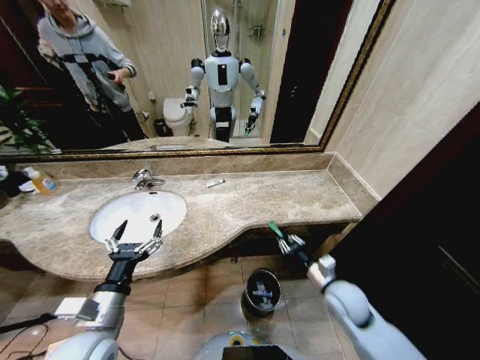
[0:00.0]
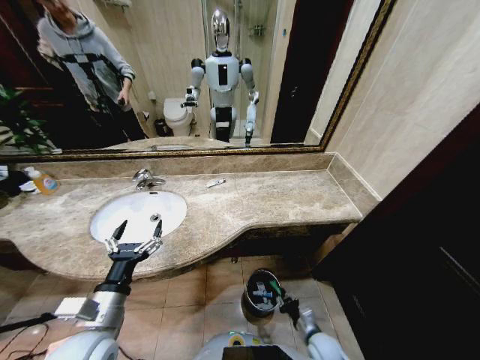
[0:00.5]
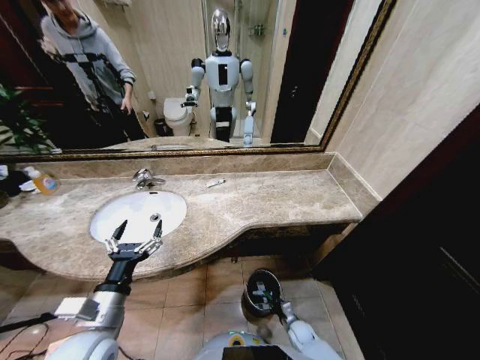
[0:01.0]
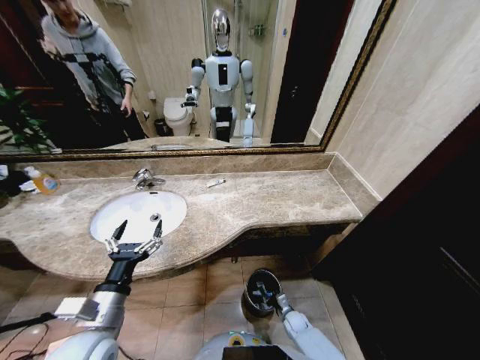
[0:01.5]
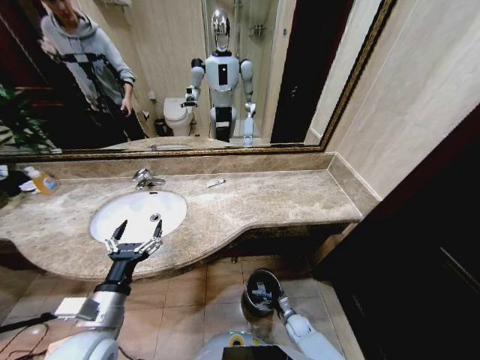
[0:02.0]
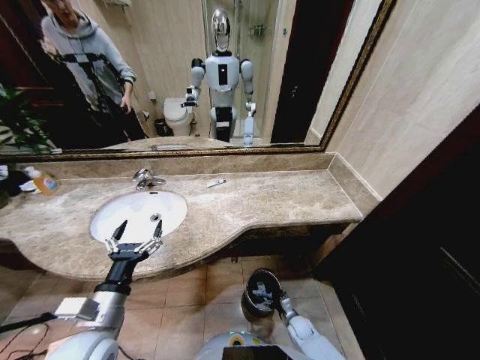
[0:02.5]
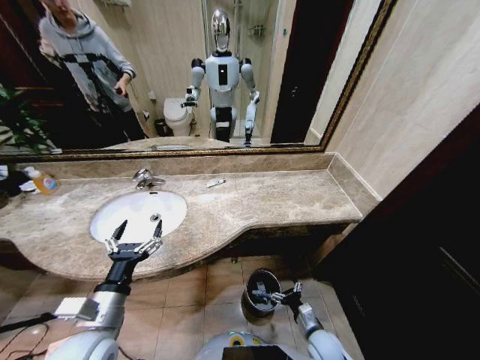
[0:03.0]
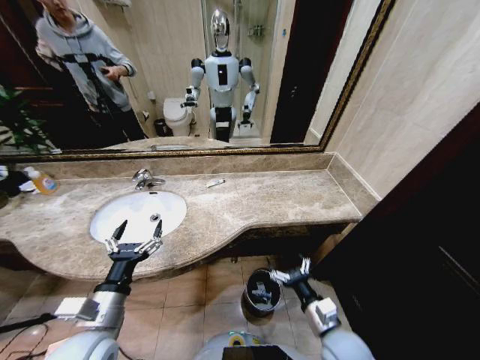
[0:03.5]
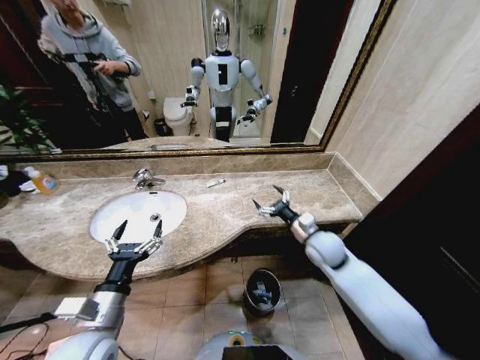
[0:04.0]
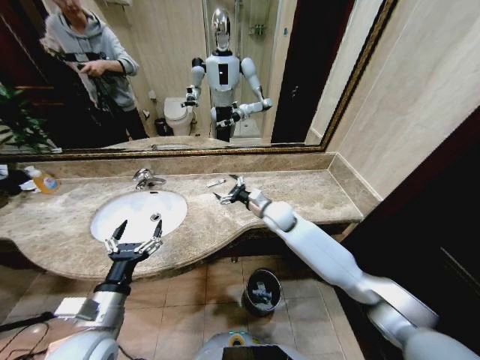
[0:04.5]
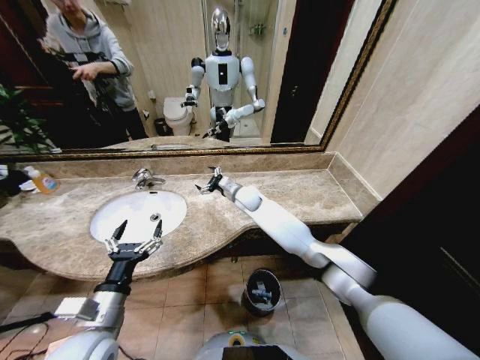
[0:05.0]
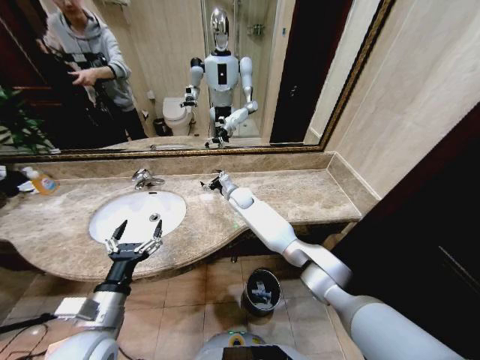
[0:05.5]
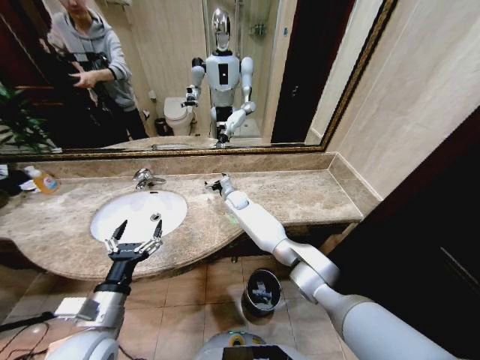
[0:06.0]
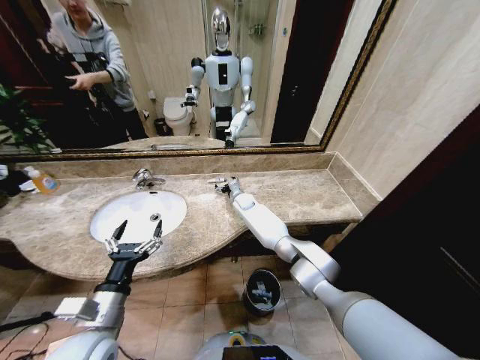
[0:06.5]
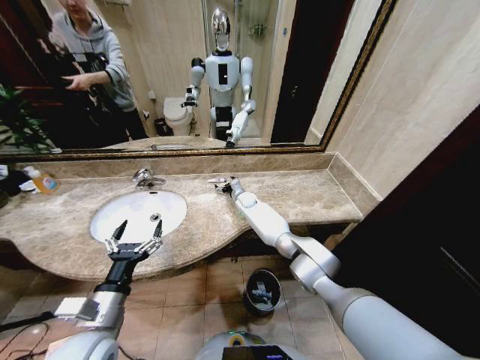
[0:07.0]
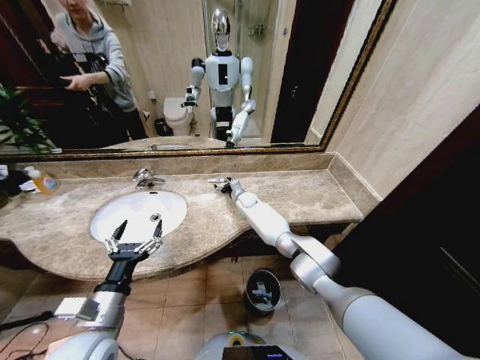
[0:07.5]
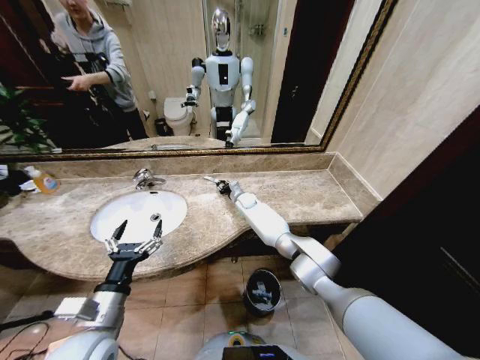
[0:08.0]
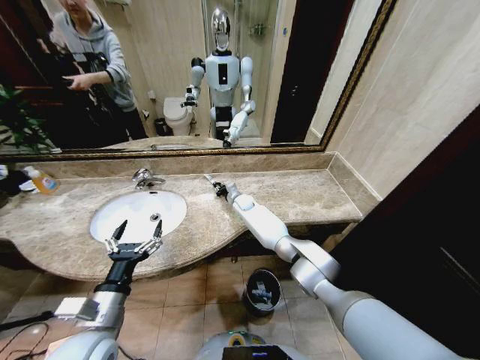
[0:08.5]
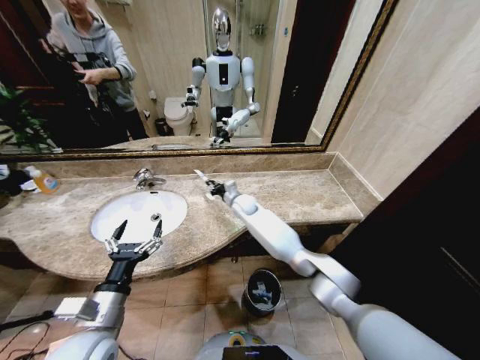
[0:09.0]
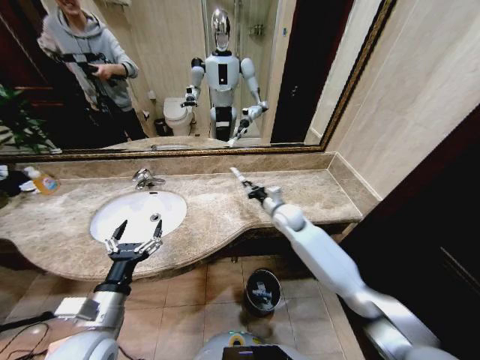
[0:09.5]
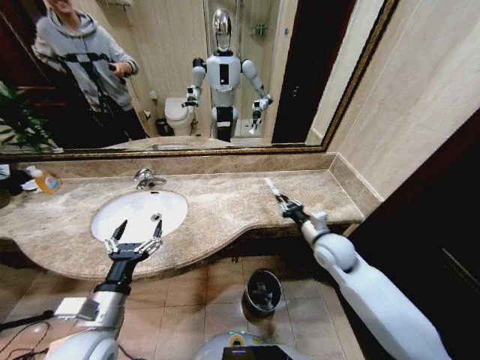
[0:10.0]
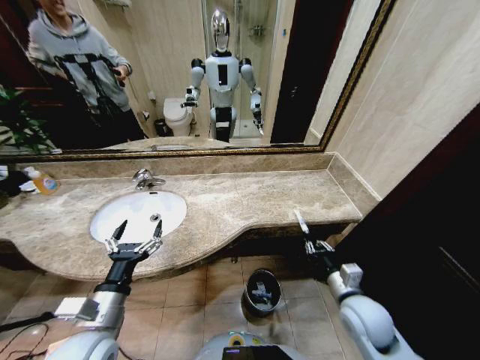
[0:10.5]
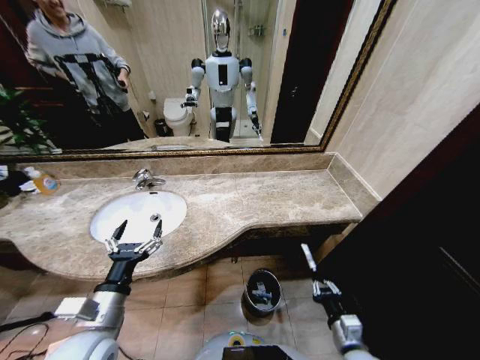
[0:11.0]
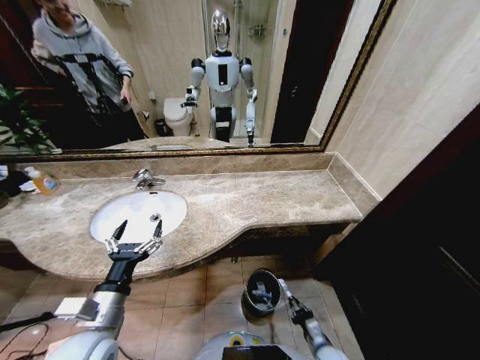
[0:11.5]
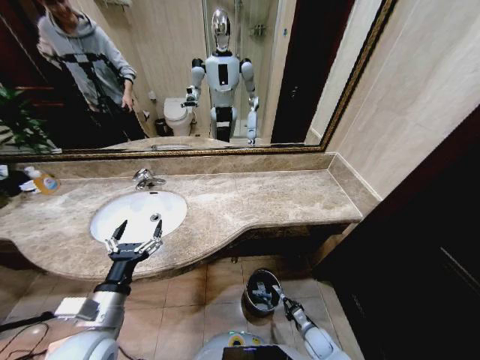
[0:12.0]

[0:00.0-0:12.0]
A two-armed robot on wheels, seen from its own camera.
Task of the whole recording: Pick up the trash from the sink and place it in the trash bin.
0:00.0 to 0:02.0: The right gripper heads downward, covering approximately 30 cm, and opens up.
0:02.0 to 0:04.0: The right gripper travels upward by approximately 40 cm.
0:04.0 to 0:06.0: The right gripper shifts roughly 35 cm forward and to the left.
0:06.0 to 0:08.0: The right gripper moves approximately 5 cm, and closes up.
0:08.0 to 0:10.0: The right gripper is displaced backward and to the right by some 35 cm.
0:10.0 to 0:12.0: The right gripper travels downward and backward by some 40 cm.

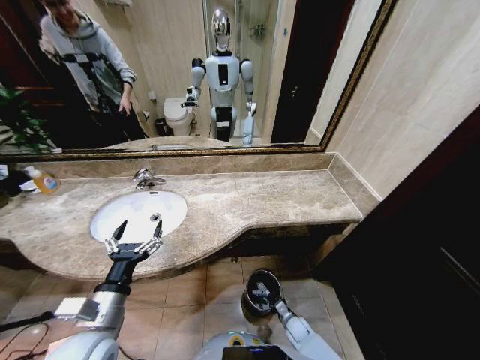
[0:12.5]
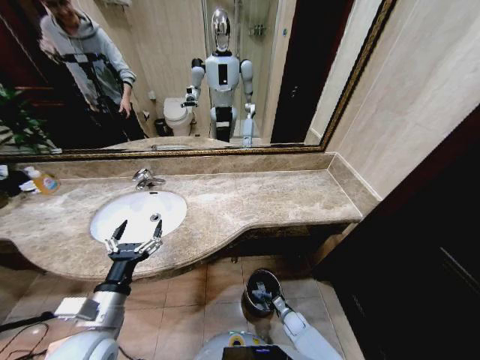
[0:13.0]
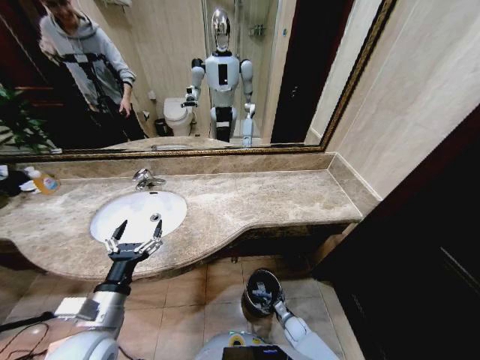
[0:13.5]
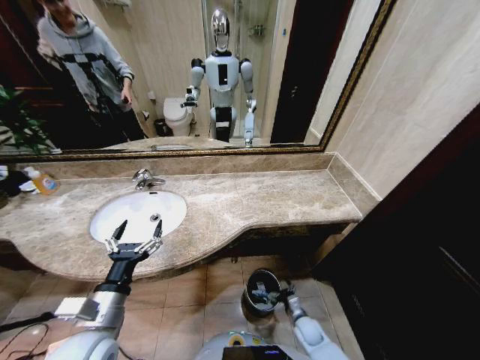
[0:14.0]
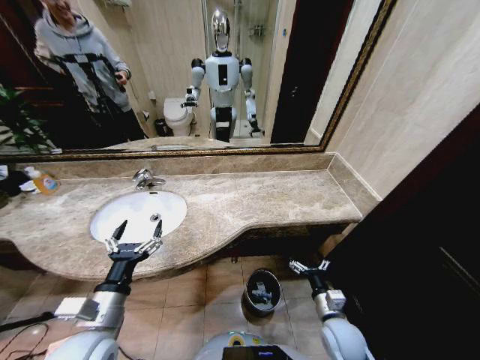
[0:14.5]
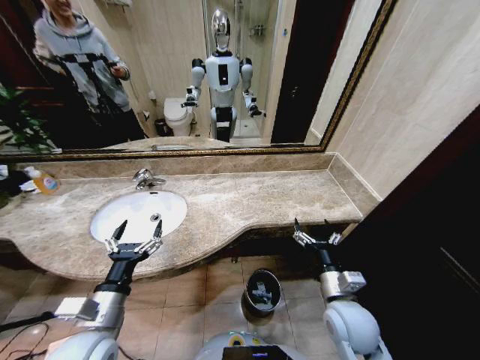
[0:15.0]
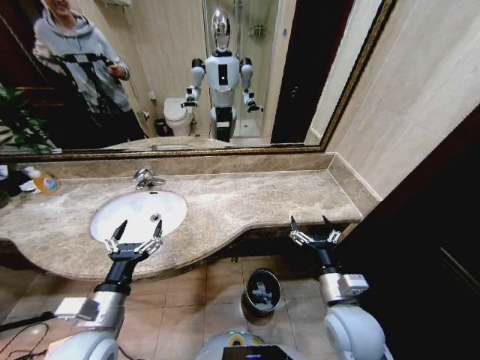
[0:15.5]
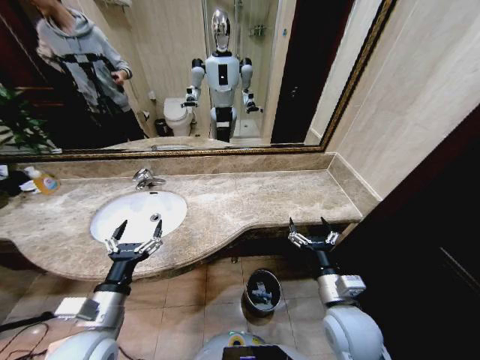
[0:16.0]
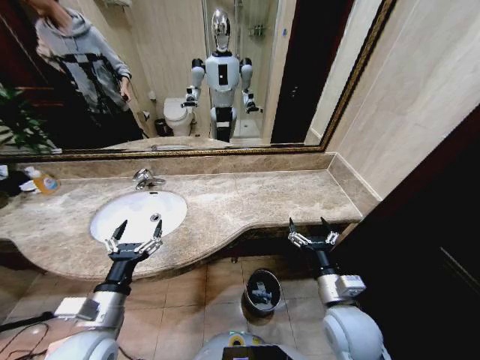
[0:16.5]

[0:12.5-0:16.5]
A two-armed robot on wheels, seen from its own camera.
Task of the whole recording: Pick up the trash from the sink and place it in the trash bin.
0:12.5 to 0:14.5: The right gripper is displaced upward by approximately 25 cm, and opens.
0:14.5 to 0:16.5: The right gripper moves upward, some 15 cm.

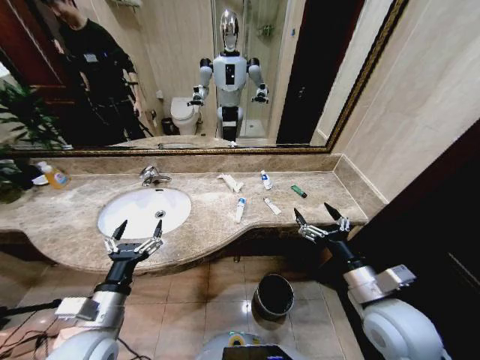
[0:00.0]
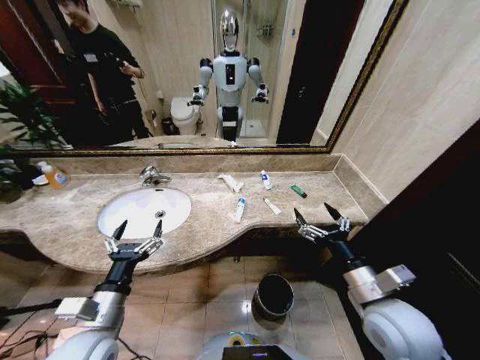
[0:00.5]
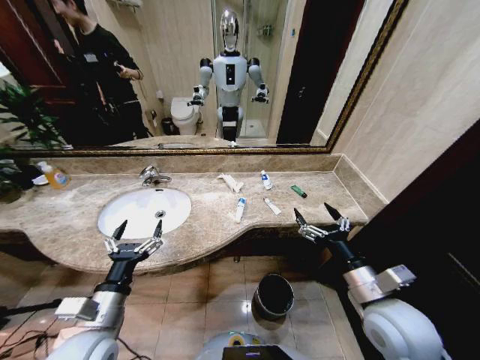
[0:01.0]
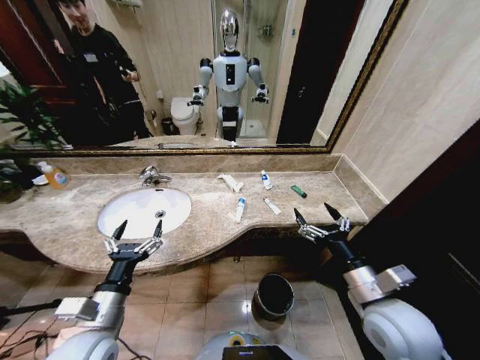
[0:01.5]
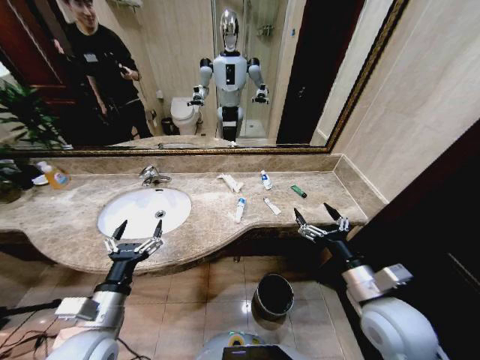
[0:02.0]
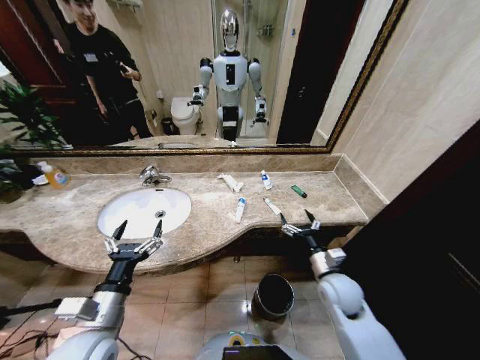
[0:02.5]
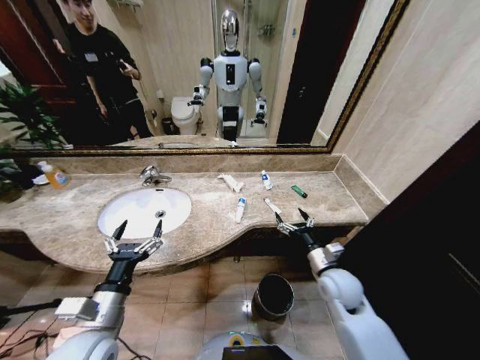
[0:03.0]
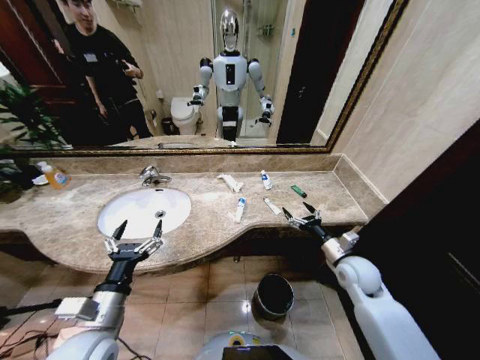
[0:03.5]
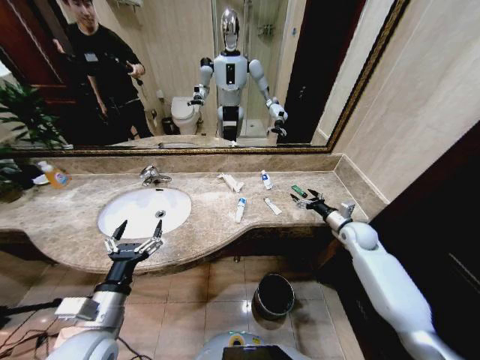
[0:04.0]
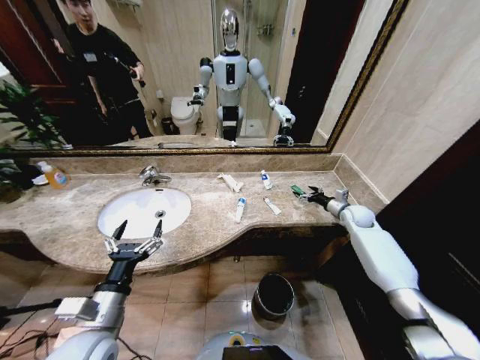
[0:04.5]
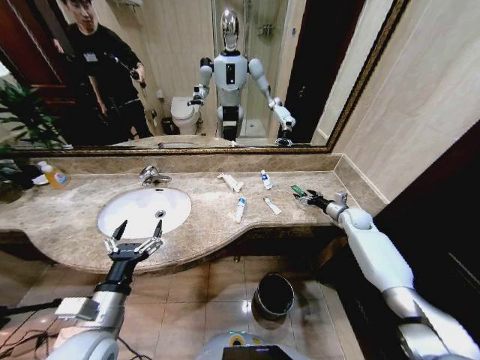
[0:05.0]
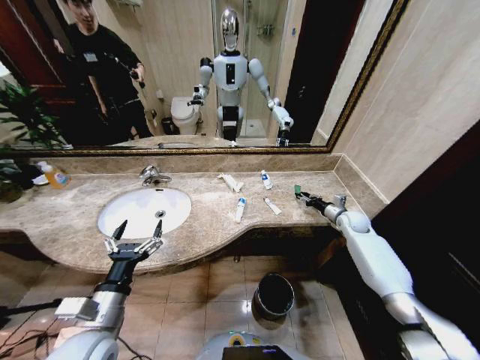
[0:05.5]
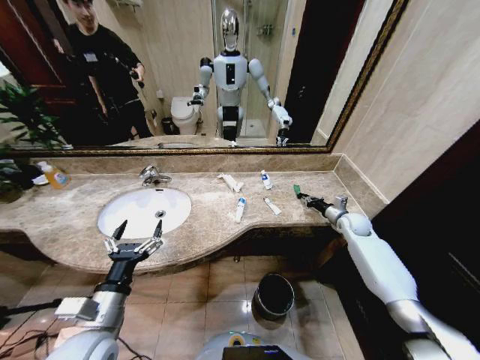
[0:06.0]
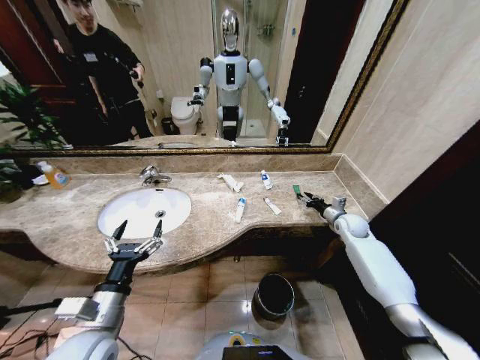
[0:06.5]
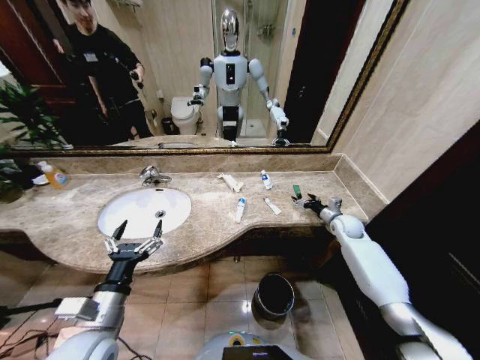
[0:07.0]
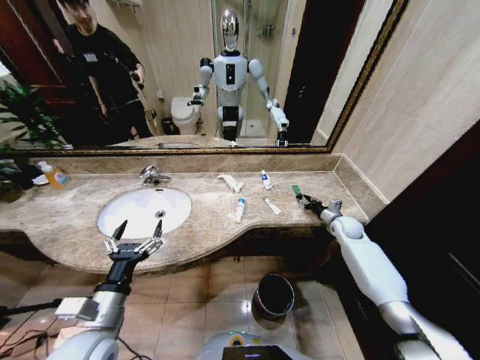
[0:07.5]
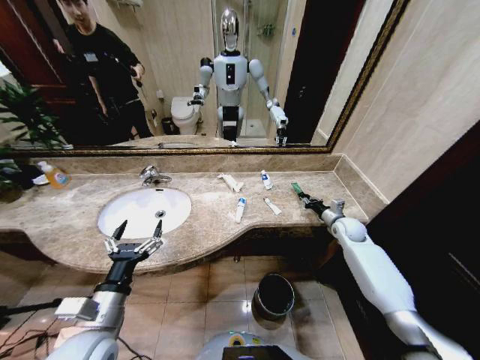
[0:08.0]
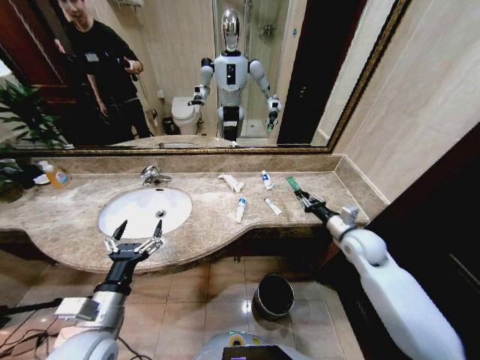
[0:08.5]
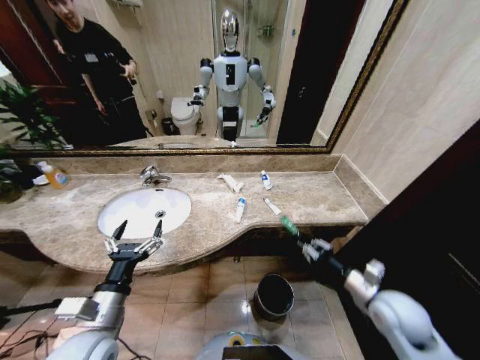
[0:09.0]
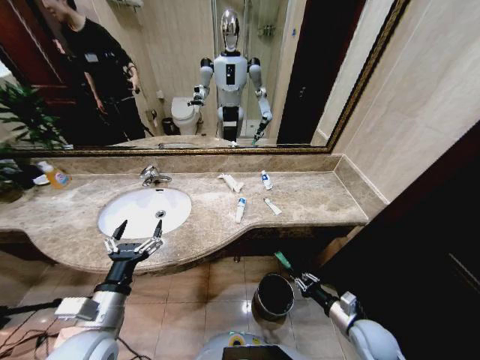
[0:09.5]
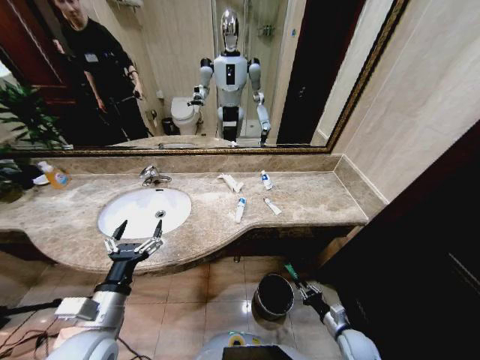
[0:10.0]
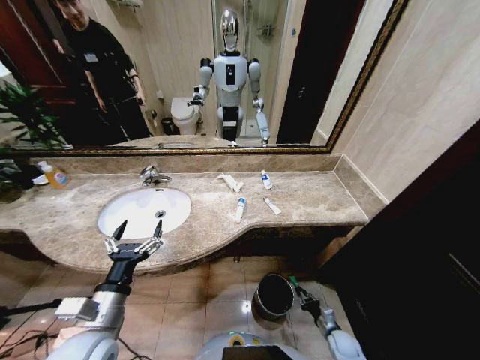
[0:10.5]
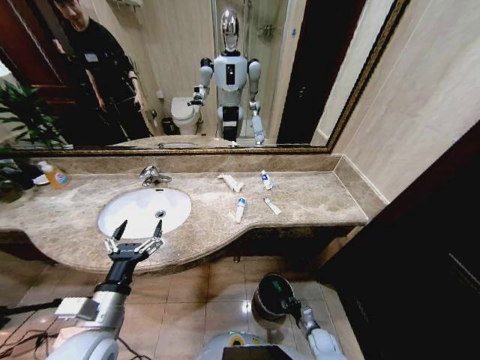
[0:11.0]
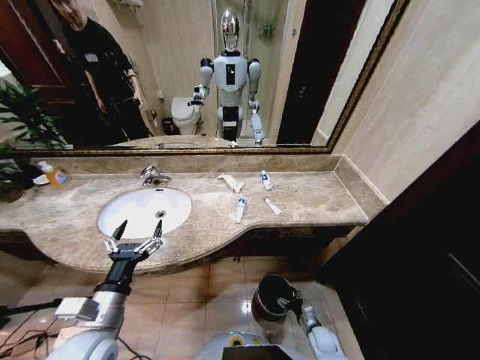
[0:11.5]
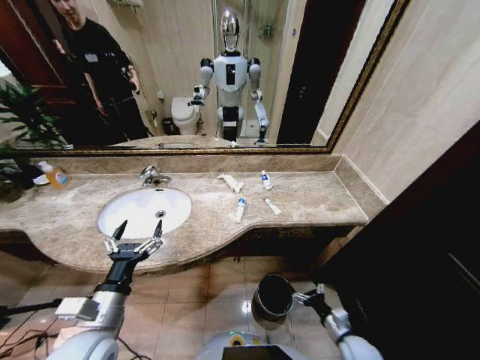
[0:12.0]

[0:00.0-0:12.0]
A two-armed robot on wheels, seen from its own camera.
Task of the whole recording: Pick up the trash from the sink and place it in the trash bin.
0:02.0 to 0:04.0: The right gripper shifts about 30 cm forward and to the right.
0:04.0 to 0:06.0: The right gripper goes roughly 5 cm forward, and closes.
0:06.0 to 0:08.0: The right gripper opens, then closes again.
0:08.0 to 0:10.0: The right gripper moves backward and downward, some 35 cm.
0:10.0 to 0:12.0: The right gripper reaches roughly 10 cm downward, then returns, and opens up.
